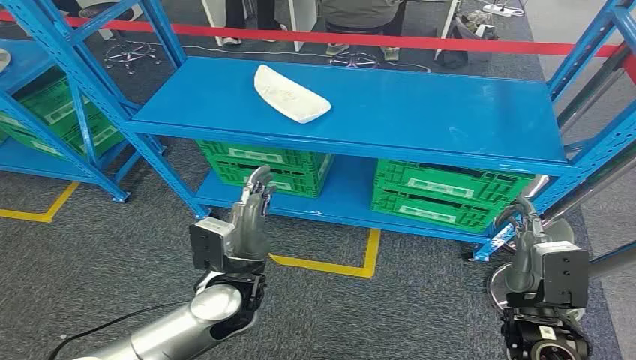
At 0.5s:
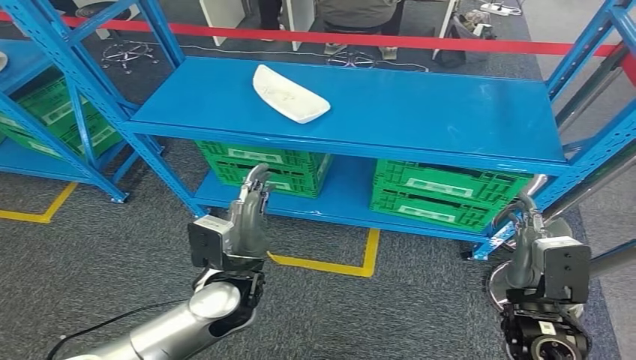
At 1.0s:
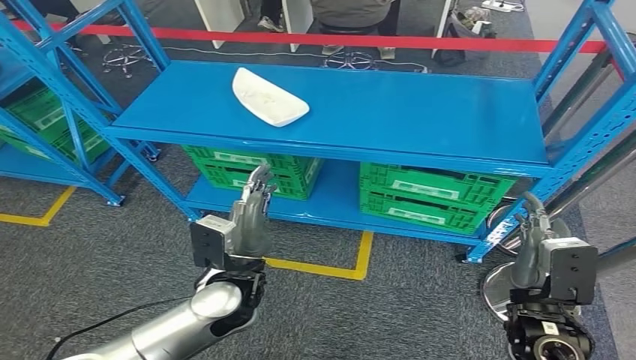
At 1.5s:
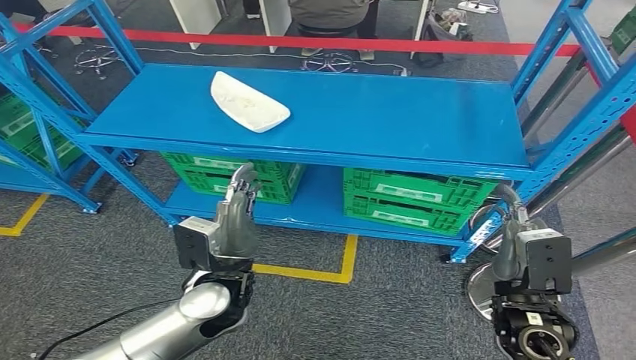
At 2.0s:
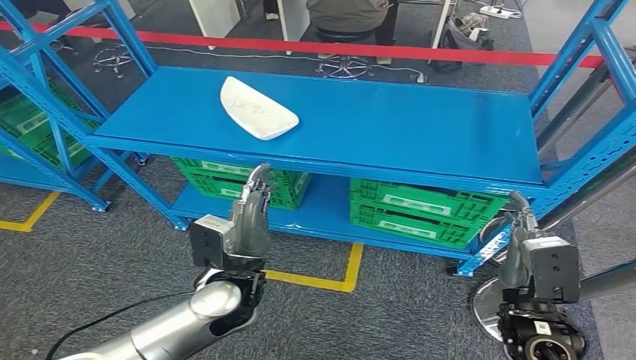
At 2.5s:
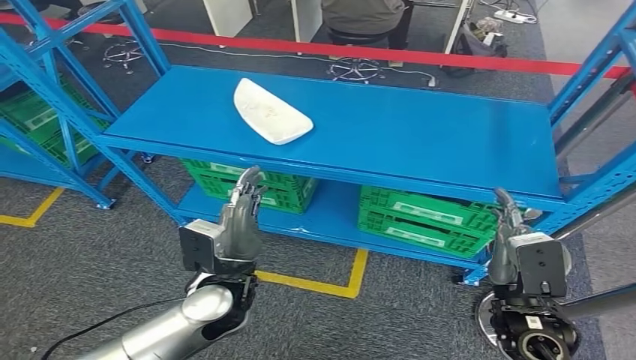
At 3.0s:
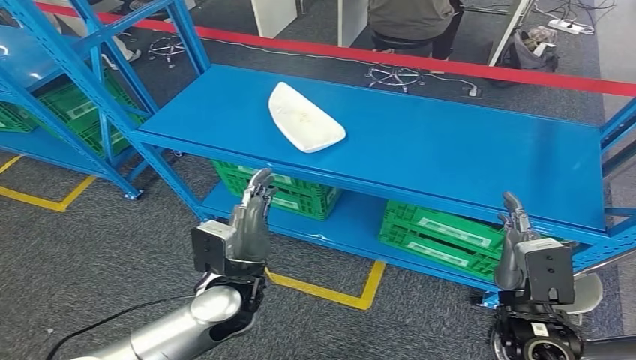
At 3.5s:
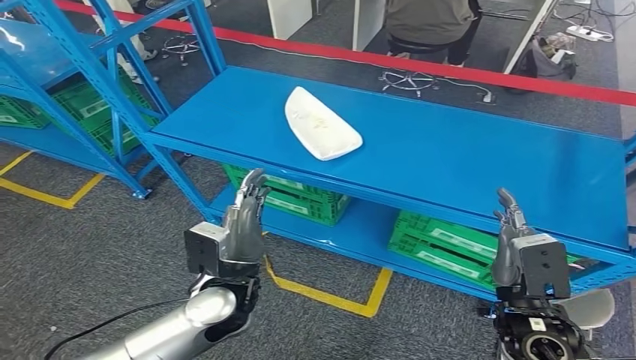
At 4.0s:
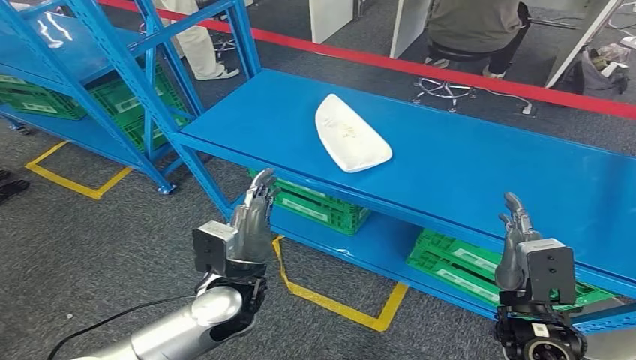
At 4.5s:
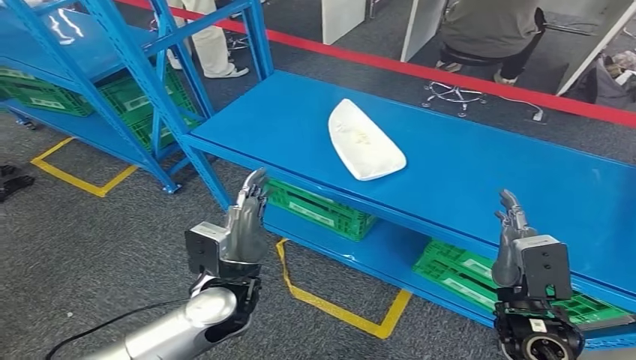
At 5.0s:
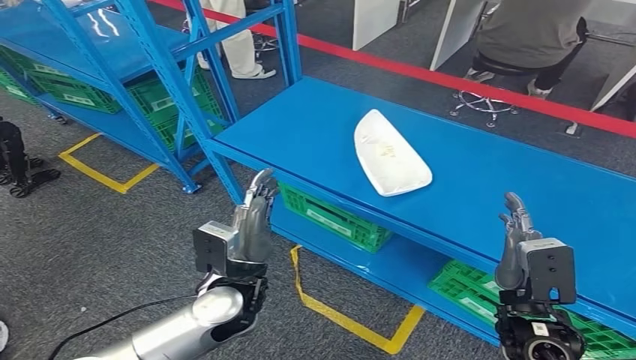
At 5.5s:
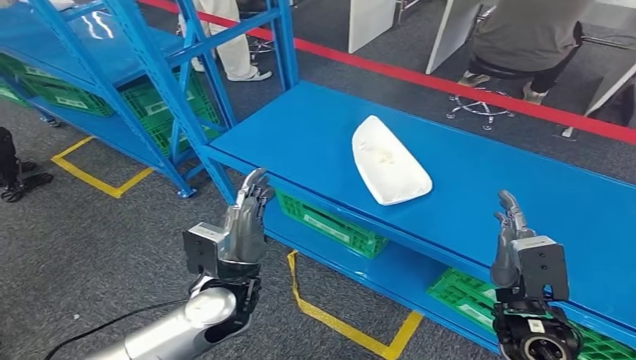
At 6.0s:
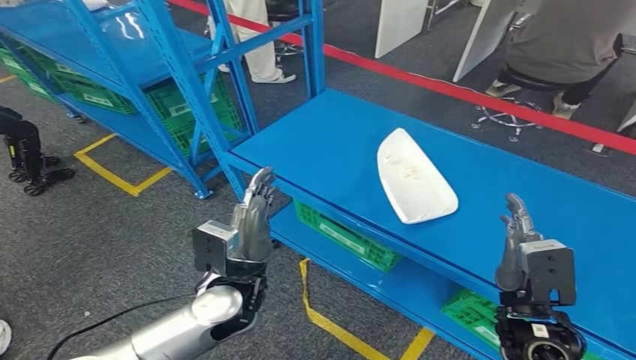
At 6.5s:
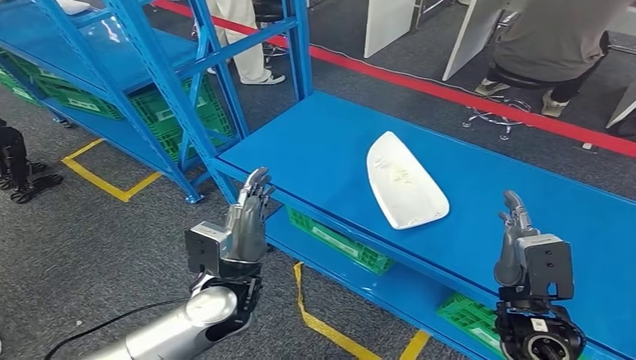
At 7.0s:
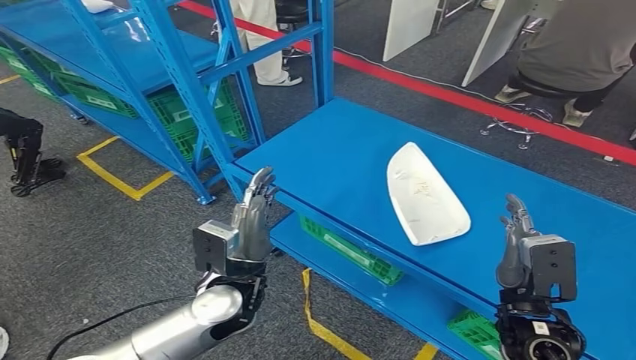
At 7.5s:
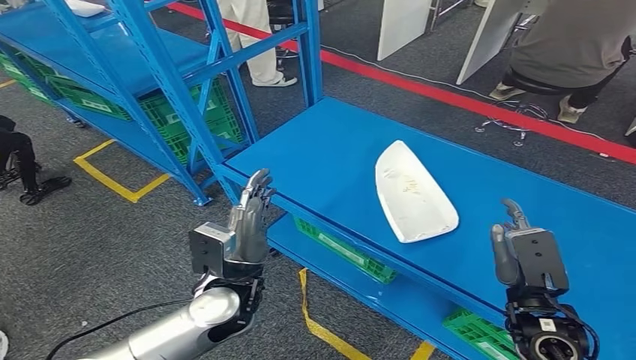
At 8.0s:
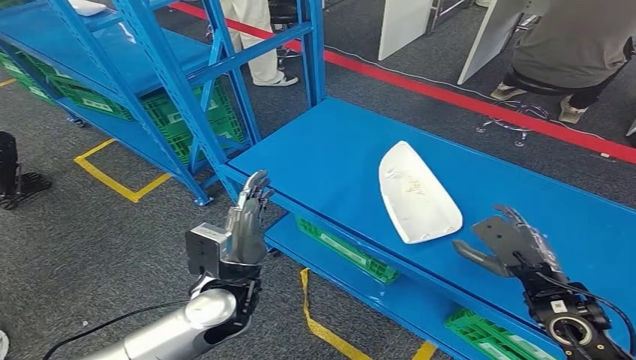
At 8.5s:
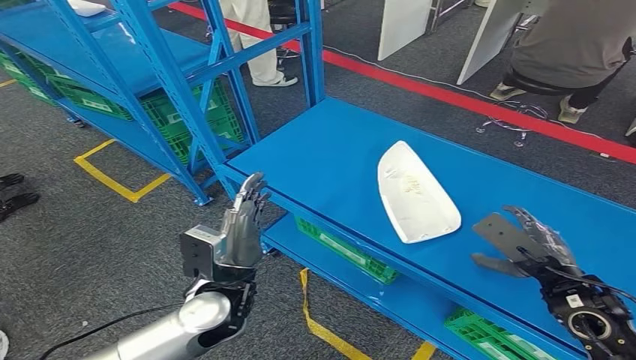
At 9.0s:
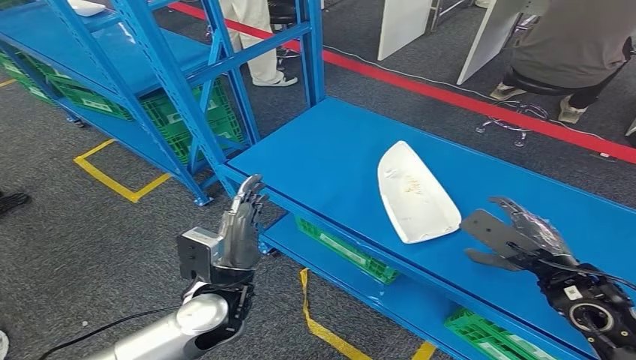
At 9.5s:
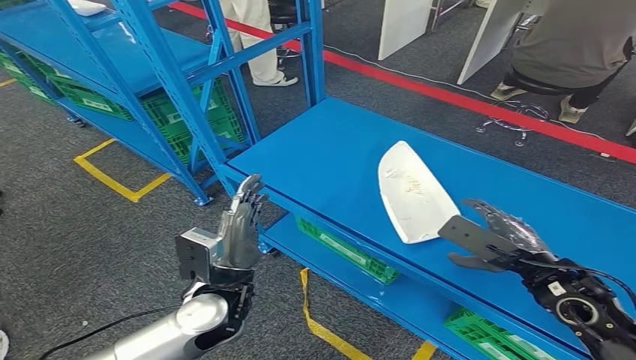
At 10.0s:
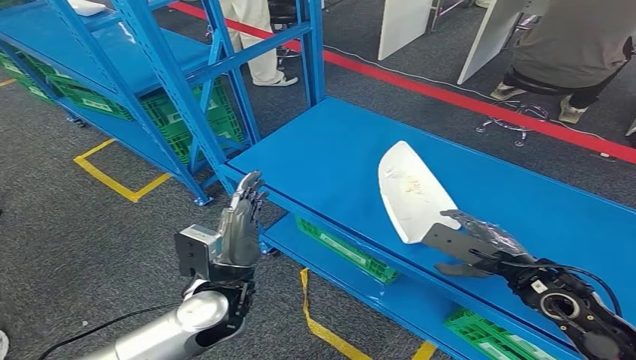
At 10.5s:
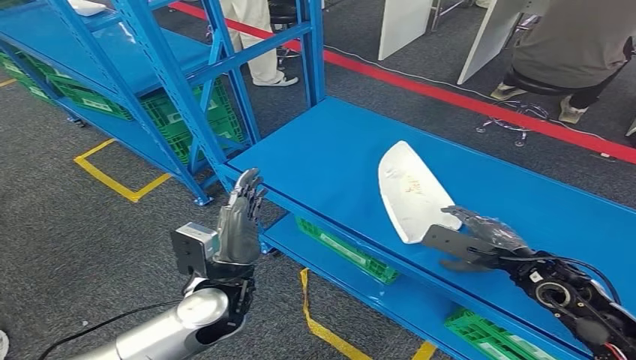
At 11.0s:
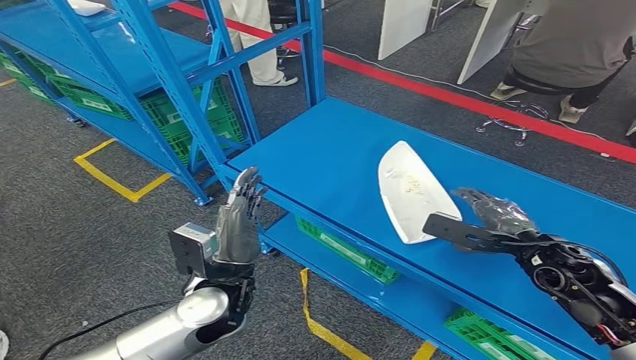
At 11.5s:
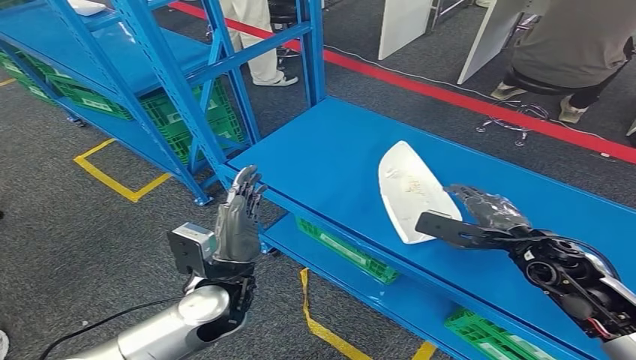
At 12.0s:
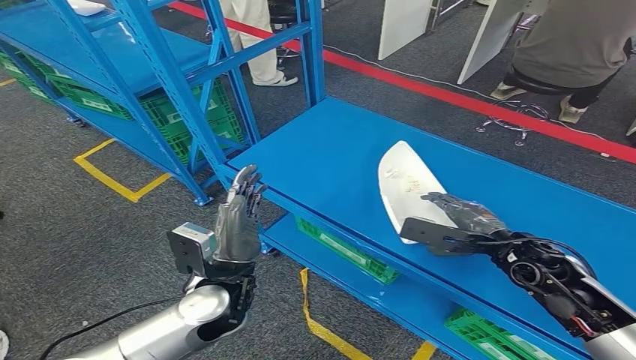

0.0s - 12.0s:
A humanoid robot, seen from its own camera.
10.0s - 12.0s: The right hand goes approximately 5 cm forward.

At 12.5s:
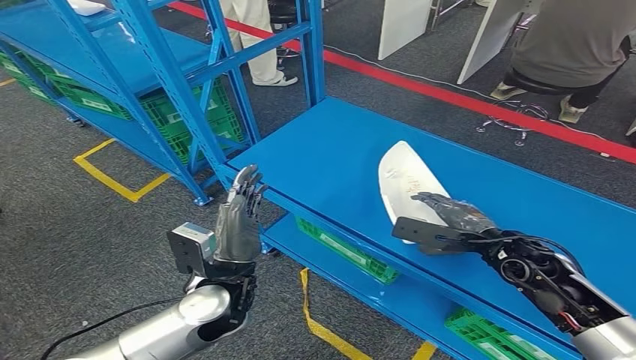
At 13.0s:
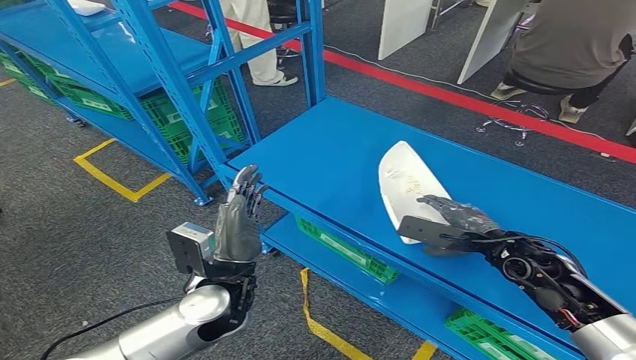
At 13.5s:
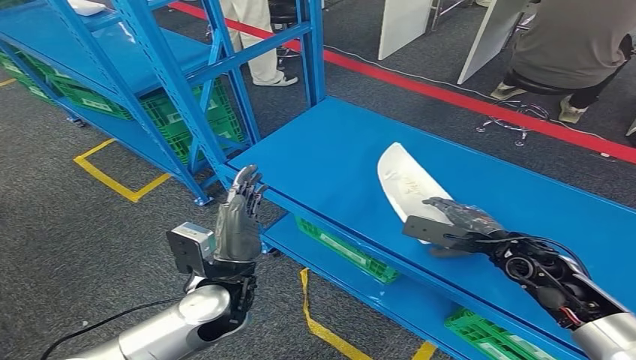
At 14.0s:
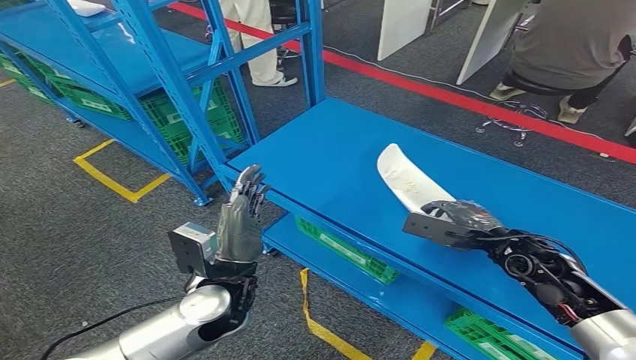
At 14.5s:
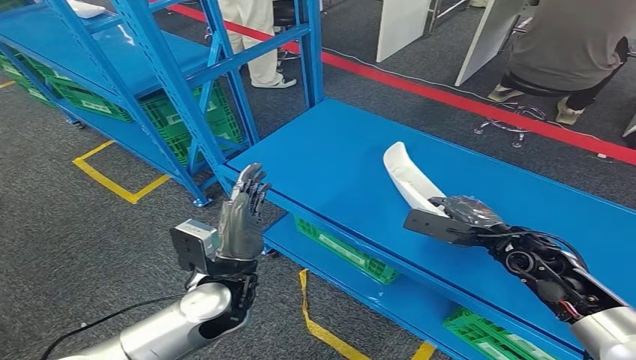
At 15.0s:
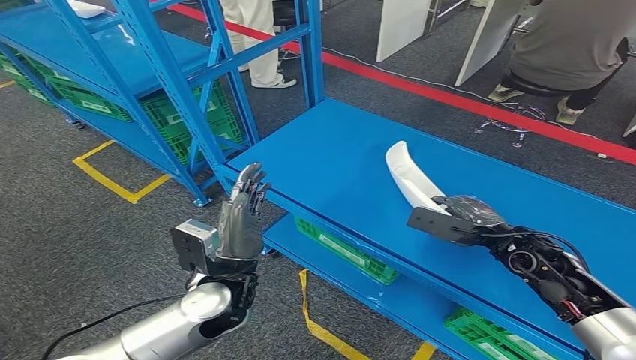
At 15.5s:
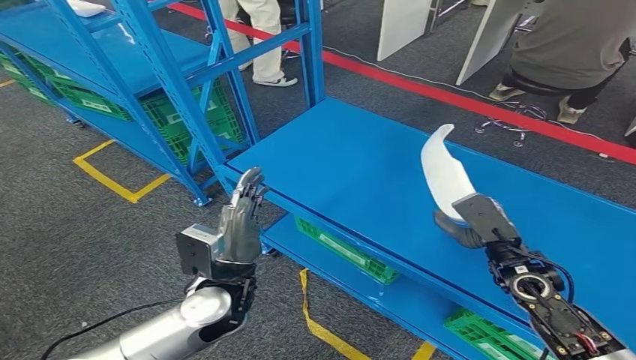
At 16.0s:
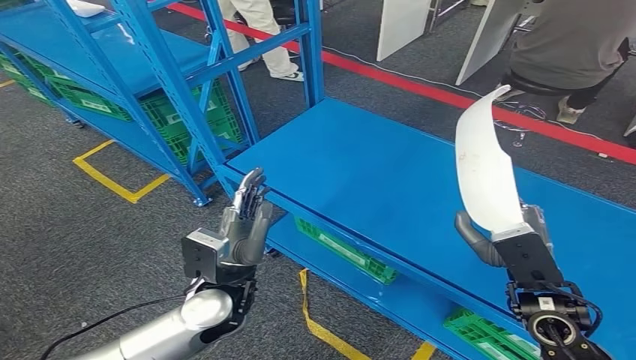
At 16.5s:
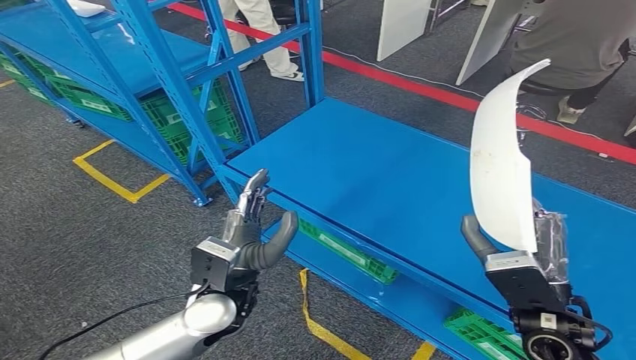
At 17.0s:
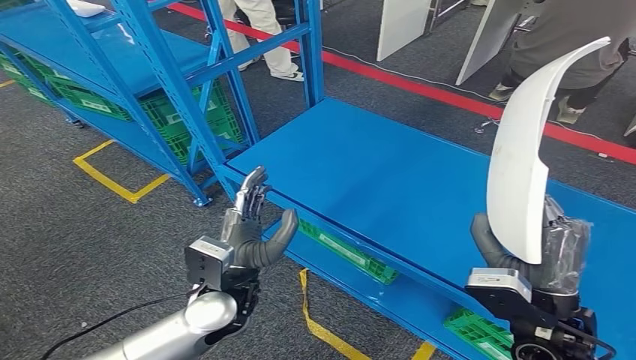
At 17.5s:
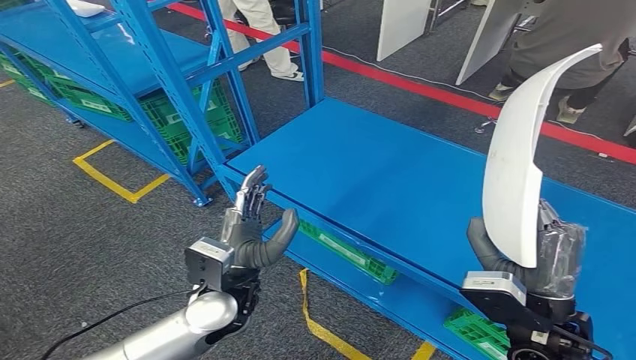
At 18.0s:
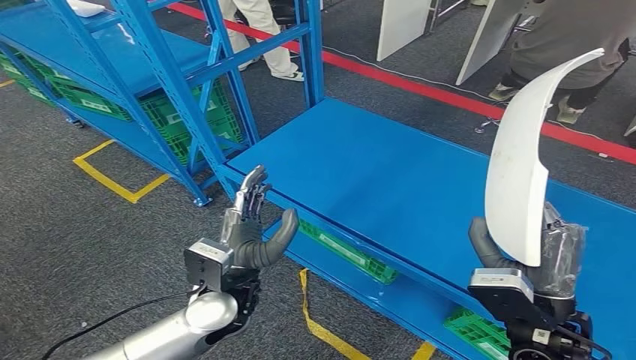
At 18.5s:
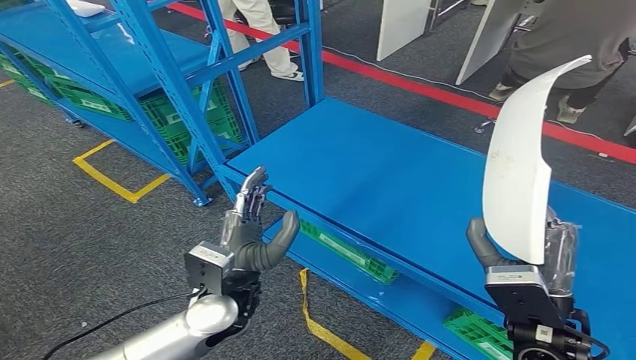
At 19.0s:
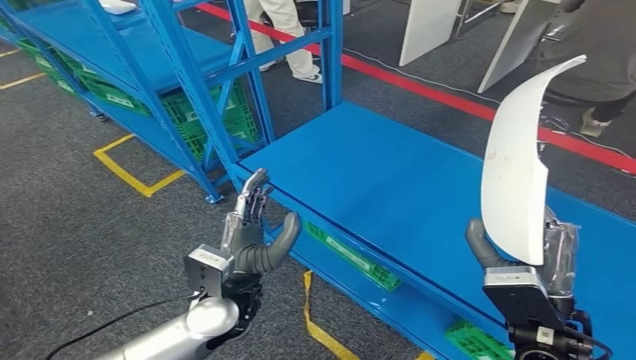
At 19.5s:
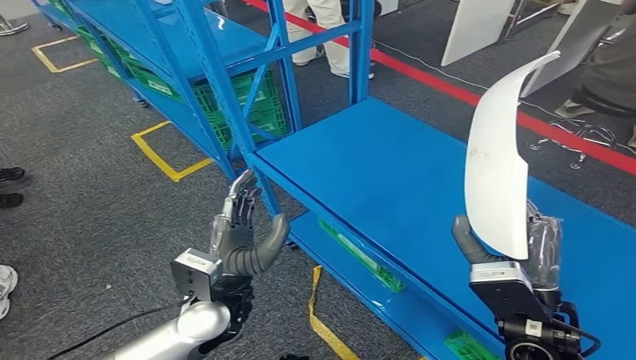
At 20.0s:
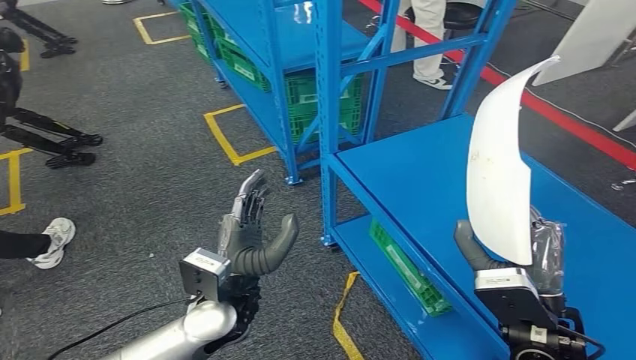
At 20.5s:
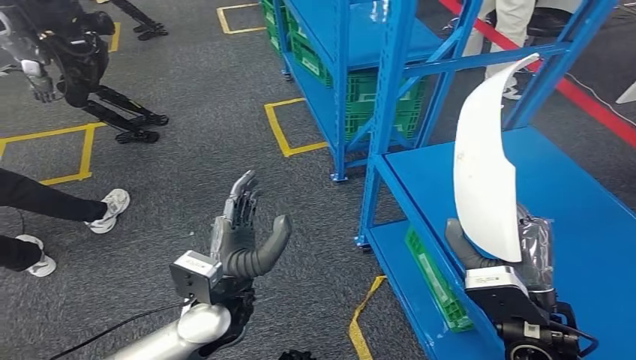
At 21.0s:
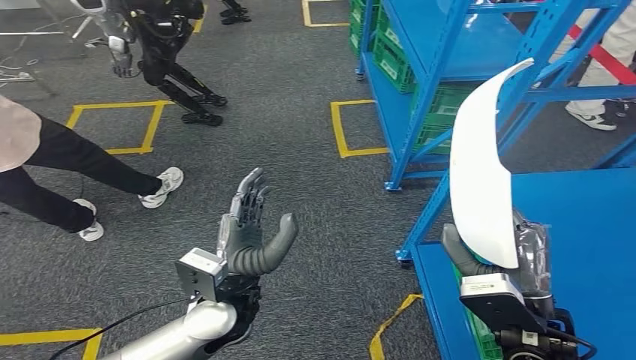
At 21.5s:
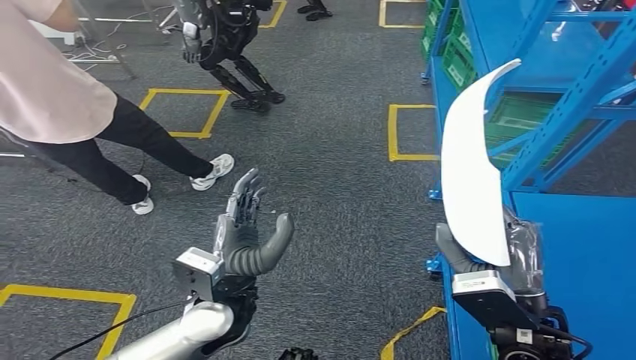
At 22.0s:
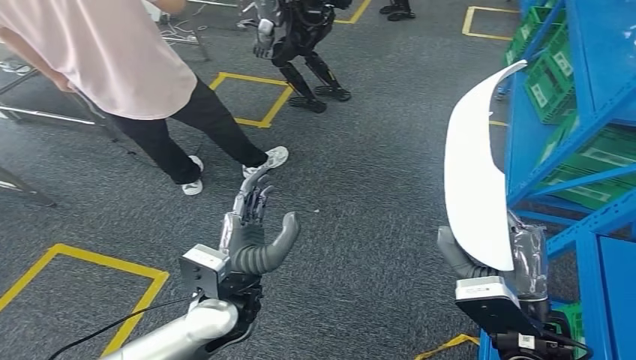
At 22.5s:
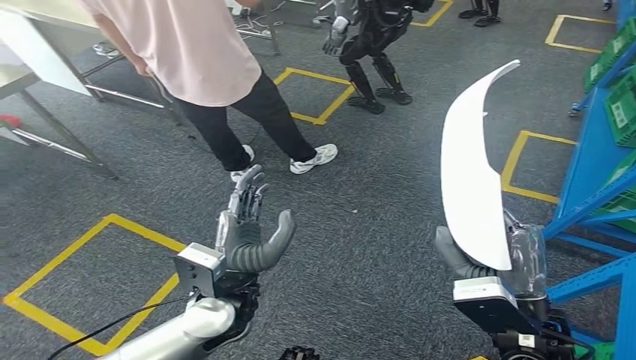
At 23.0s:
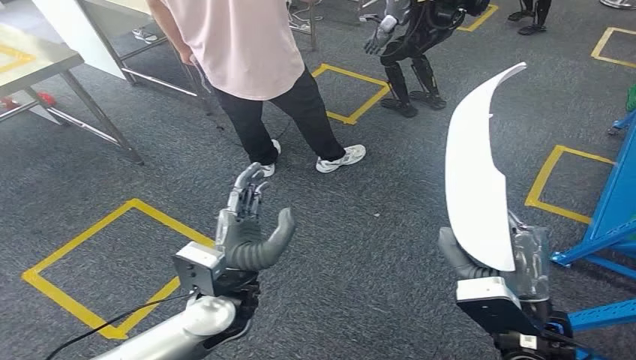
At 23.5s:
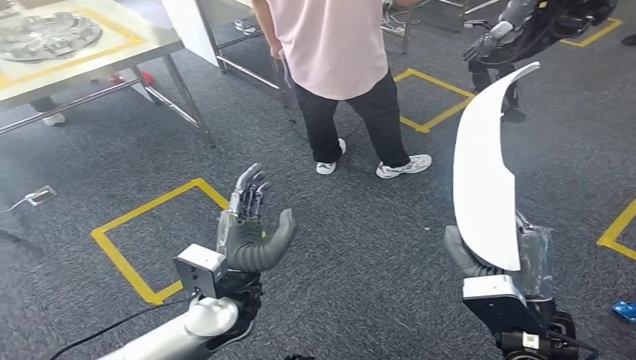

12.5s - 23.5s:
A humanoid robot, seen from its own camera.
Step, 12.5s - 17.5s: Pick up the small parts from the shelf.
12.5s - 14.5s: The hands stay close to where they were, moving slightly.
14.5s - 16.0s: The right hand goes roughly 10 cm backward.
16.0s - 18.0s: The right hand shifts by about 5 cm.
